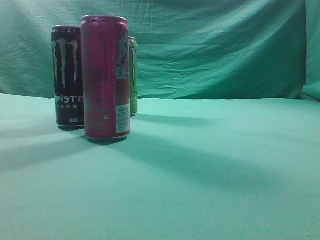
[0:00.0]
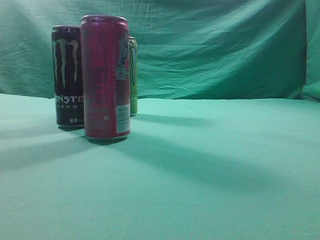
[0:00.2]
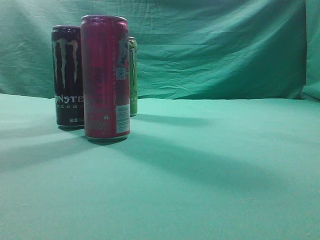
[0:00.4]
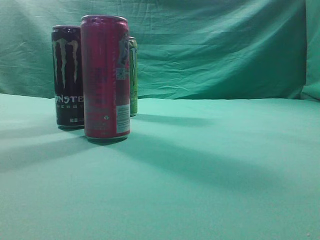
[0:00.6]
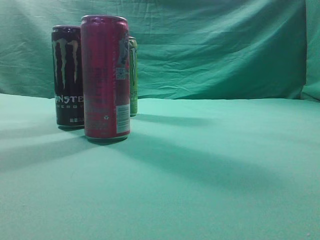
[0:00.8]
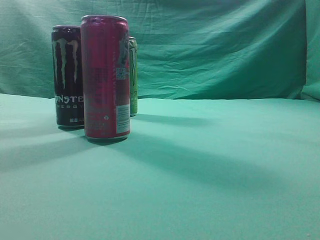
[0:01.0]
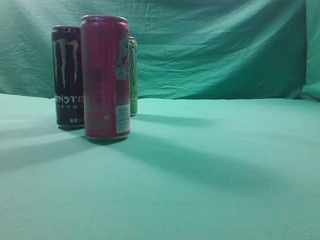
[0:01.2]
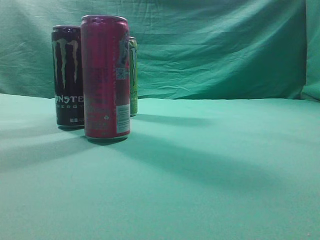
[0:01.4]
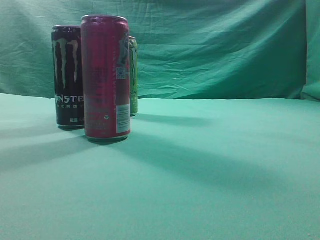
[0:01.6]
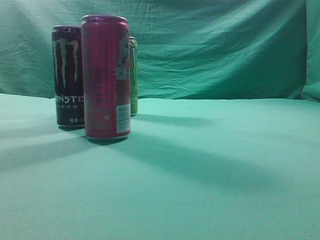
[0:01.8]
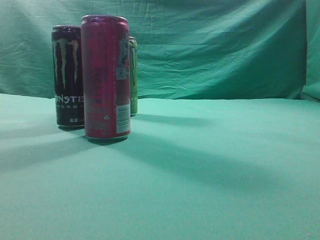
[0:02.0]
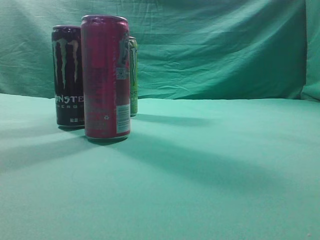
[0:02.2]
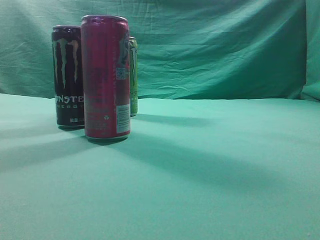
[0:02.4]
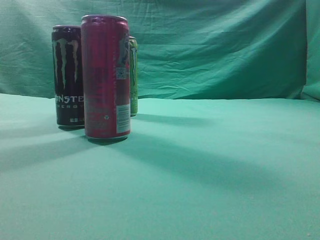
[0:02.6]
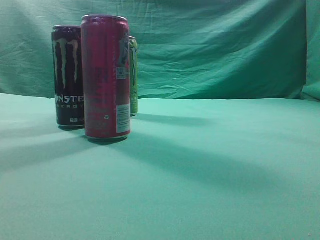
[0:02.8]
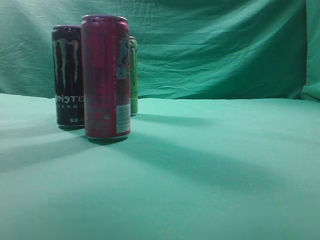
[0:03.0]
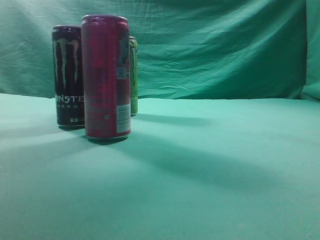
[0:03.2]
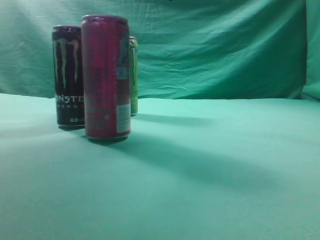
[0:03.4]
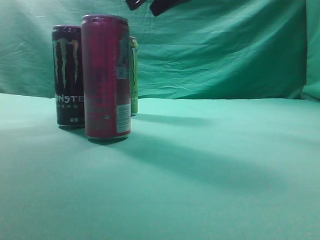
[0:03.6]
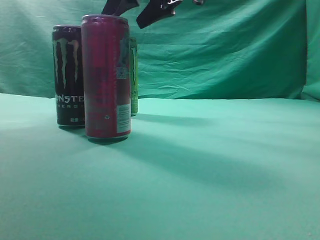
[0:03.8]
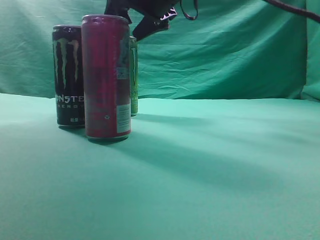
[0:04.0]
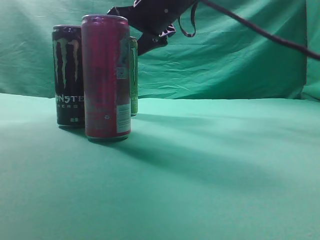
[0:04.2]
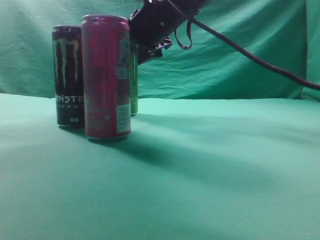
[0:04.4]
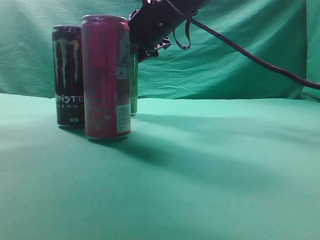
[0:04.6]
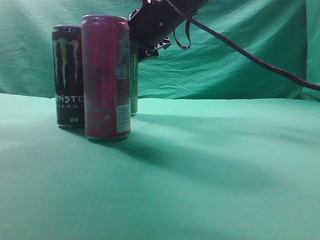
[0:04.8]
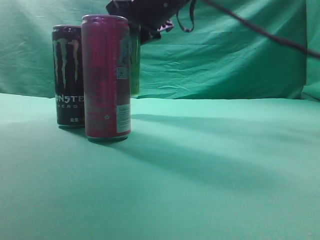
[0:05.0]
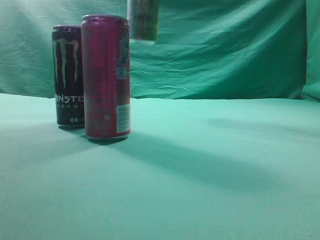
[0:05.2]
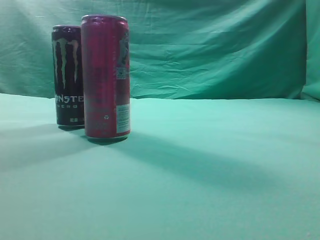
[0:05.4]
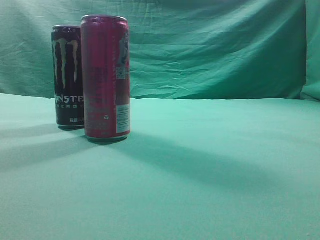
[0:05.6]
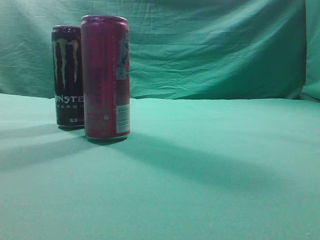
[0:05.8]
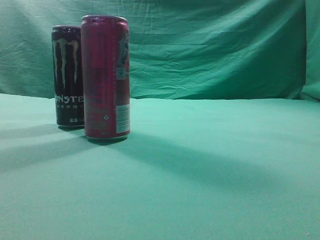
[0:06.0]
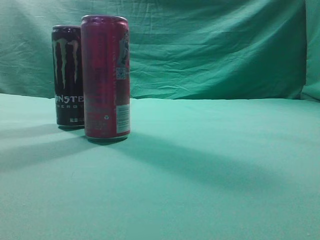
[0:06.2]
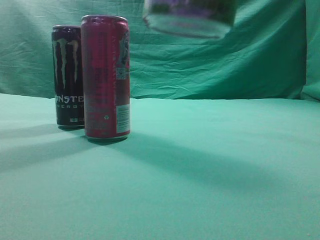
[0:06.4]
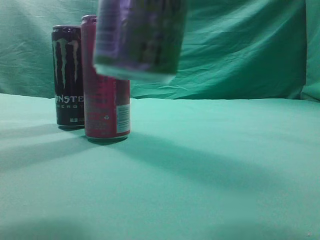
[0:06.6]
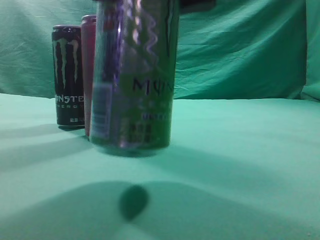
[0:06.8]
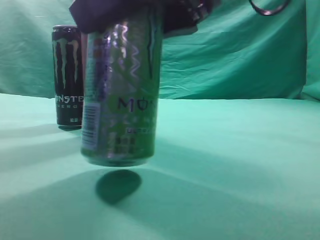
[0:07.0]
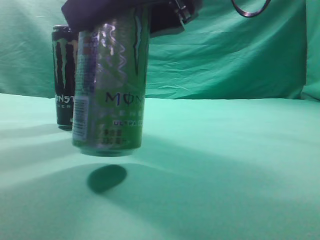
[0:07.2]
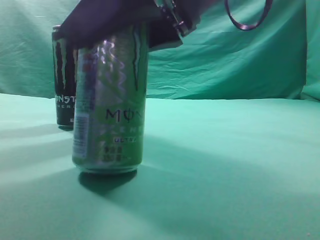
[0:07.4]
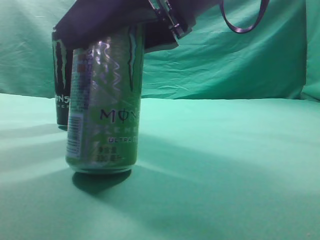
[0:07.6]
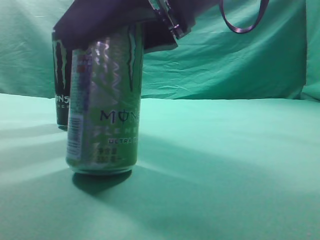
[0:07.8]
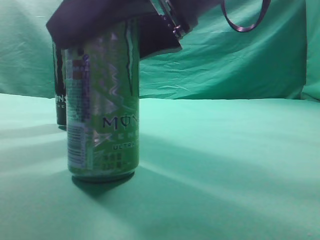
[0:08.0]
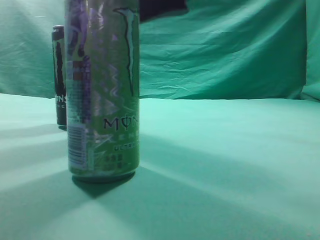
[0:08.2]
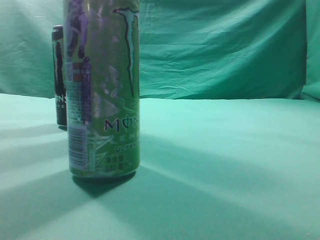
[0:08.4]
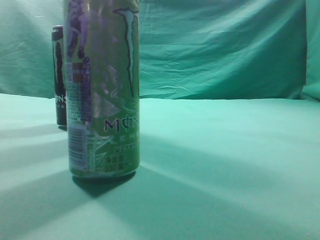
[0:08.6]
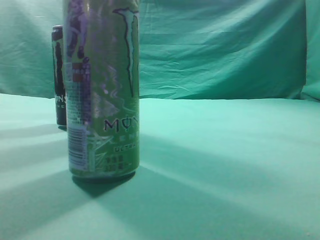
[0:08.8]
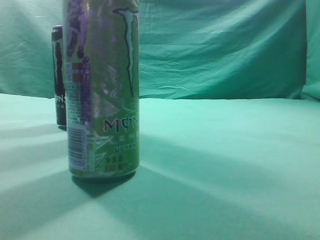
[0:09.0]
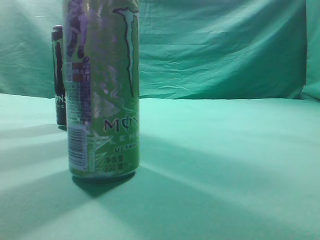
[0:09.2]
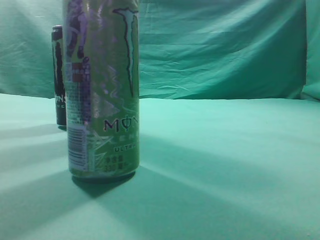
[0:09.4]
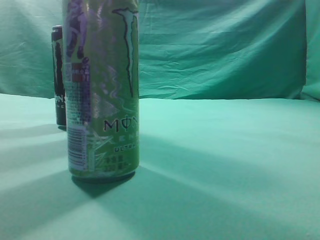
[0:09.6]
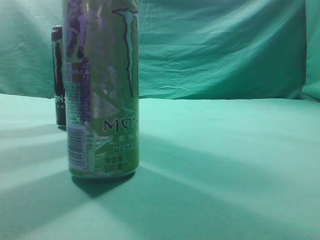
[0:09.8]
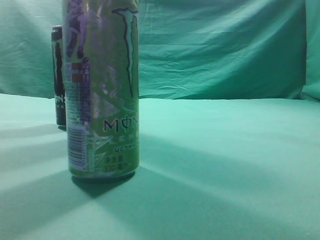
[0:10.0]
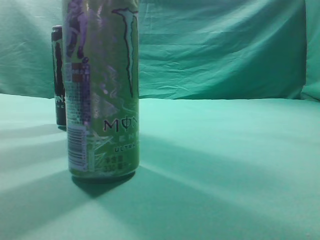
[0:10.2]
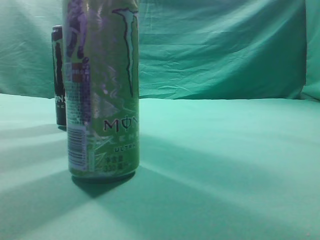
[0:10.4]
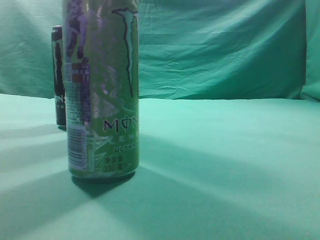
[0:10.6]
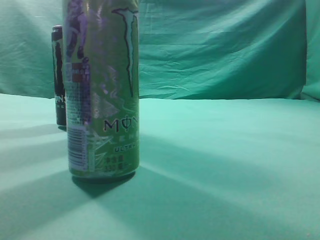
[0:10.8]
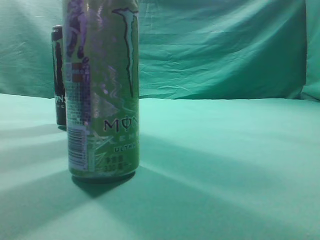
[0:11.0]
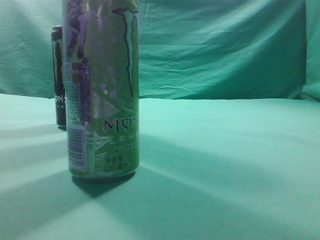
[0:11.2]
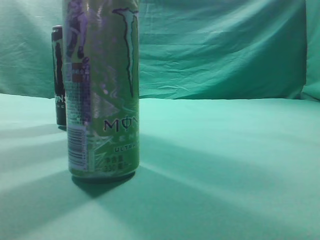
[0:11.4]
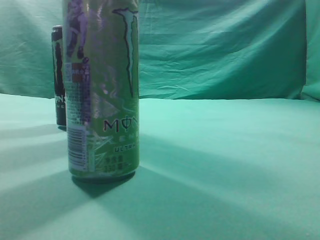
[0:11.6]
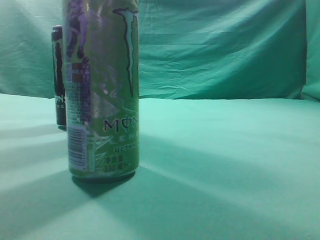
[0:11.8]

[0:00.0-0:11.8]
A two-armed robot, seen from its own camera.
Task of the whole recording: move one drink among three beverages.
Step, 0:00.0 to 0:05.2: Grasp the beverage bottle placed at the back of the desk.
Step, 0:05.4 to 0:08.0: Place the beverage bottle to the front of the table.
0:01.4 to 0:03.0: The right gripper shifts roughly 30 cm forward, upward and to the left.
0:03.0 to 0:04.4: The right gripper goes some 25 cm forward, to the left and downward, and opens its fingers.
0:04.4 to 0:06.0: The right gripper goes some 35 cm backward, upward and to the right.
0:06.0 to 0:07.4: The right gripper heads downward and to the left, covering roughly 25 cm.
0:07.4 to 0:08.8: The right gripper is displaced upward and to the right by roughly 15 cm, and closes.
